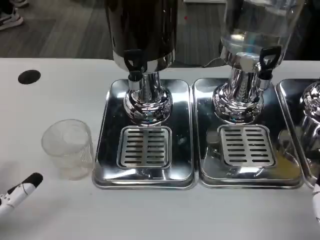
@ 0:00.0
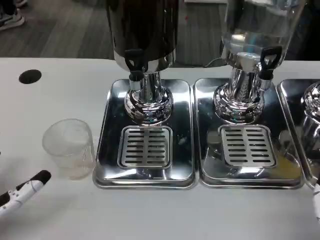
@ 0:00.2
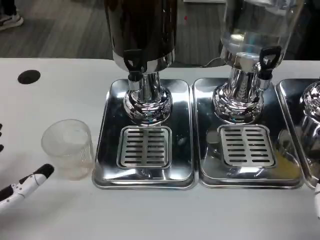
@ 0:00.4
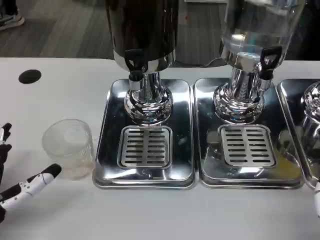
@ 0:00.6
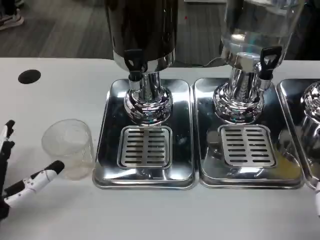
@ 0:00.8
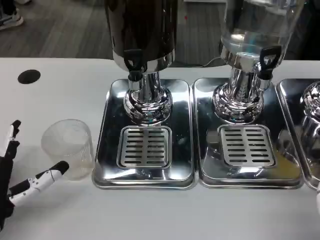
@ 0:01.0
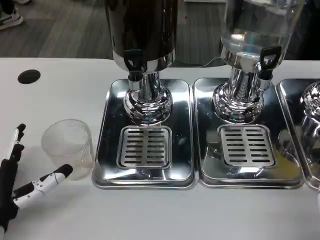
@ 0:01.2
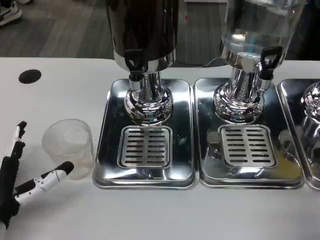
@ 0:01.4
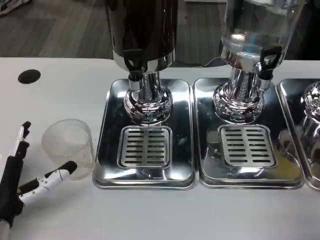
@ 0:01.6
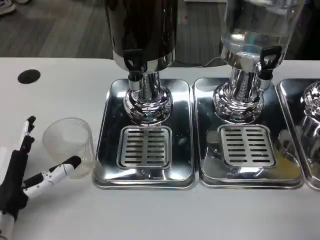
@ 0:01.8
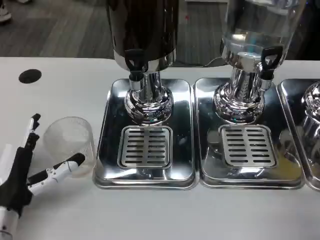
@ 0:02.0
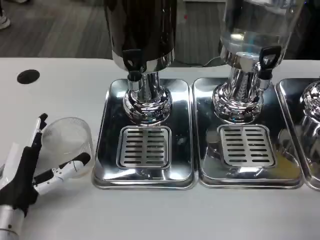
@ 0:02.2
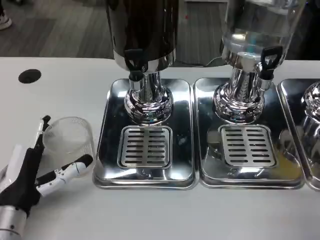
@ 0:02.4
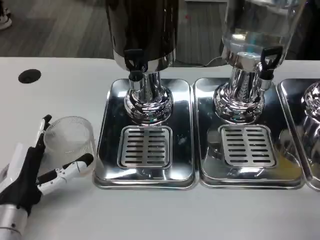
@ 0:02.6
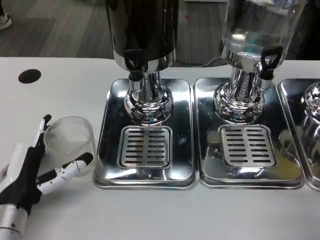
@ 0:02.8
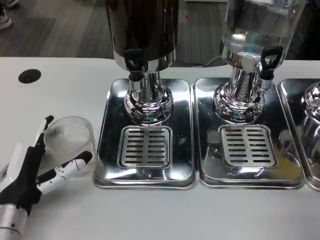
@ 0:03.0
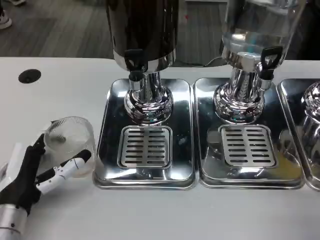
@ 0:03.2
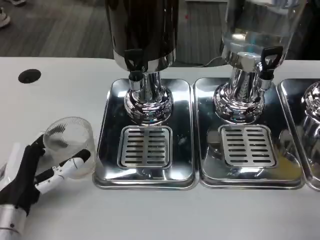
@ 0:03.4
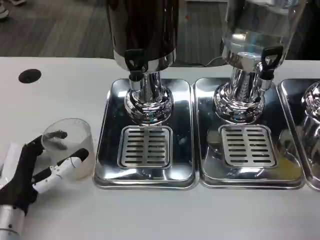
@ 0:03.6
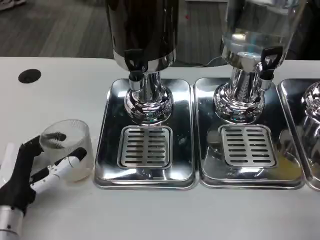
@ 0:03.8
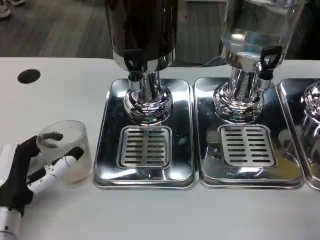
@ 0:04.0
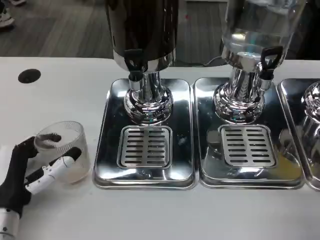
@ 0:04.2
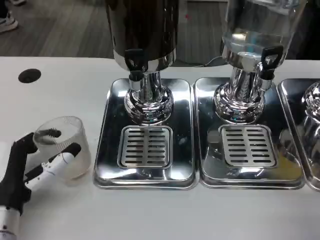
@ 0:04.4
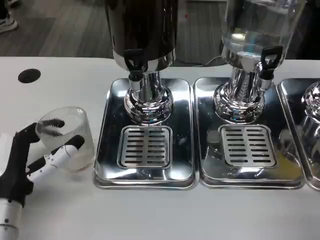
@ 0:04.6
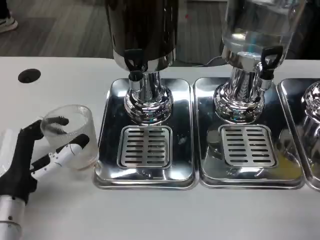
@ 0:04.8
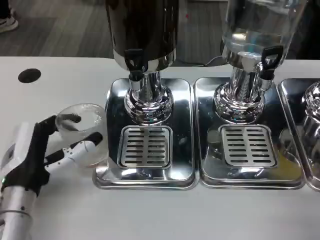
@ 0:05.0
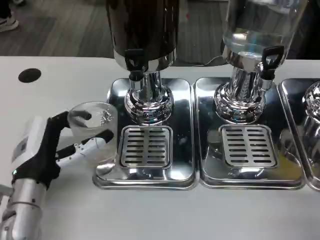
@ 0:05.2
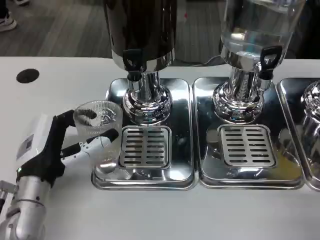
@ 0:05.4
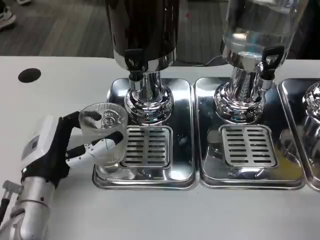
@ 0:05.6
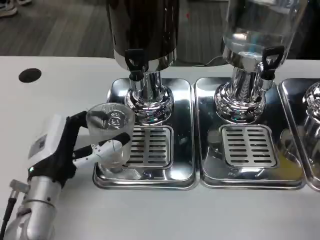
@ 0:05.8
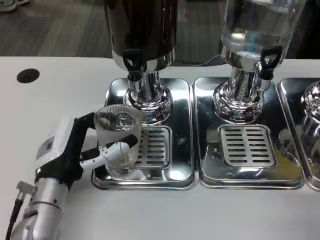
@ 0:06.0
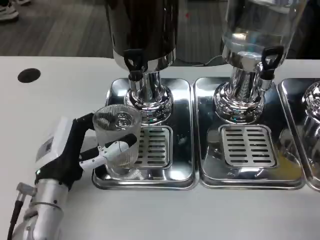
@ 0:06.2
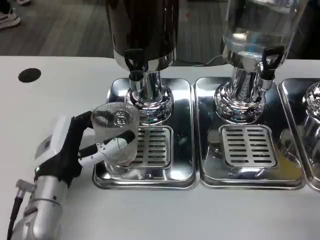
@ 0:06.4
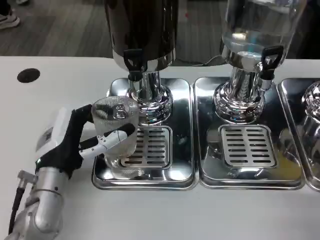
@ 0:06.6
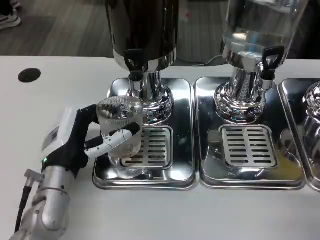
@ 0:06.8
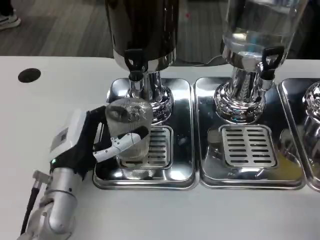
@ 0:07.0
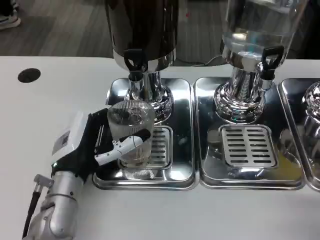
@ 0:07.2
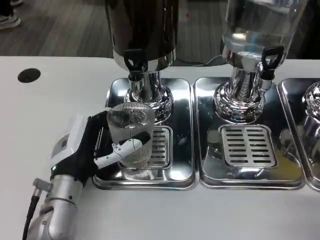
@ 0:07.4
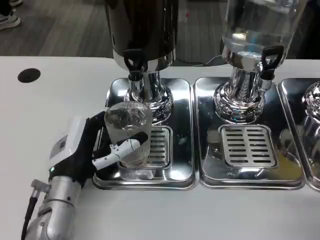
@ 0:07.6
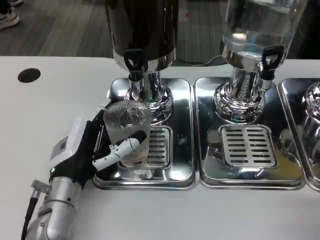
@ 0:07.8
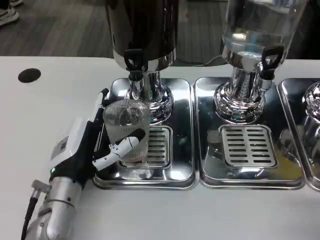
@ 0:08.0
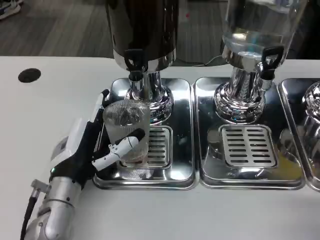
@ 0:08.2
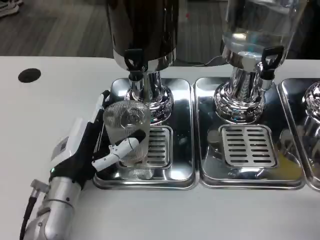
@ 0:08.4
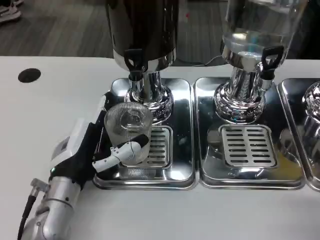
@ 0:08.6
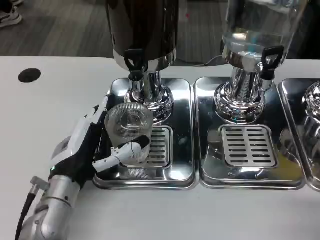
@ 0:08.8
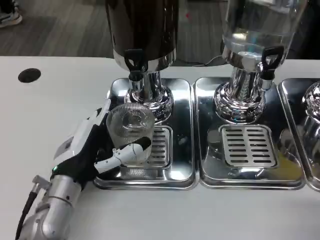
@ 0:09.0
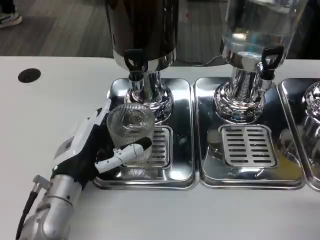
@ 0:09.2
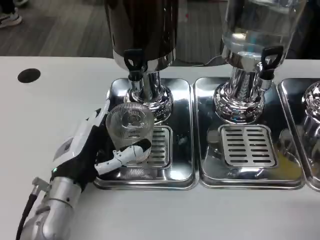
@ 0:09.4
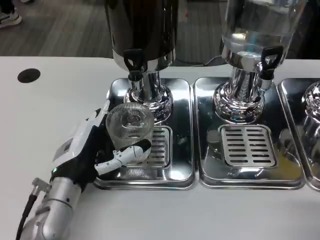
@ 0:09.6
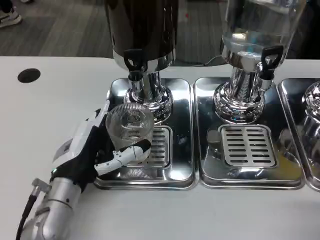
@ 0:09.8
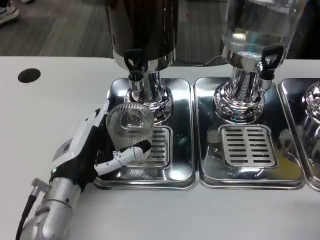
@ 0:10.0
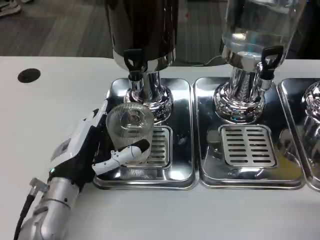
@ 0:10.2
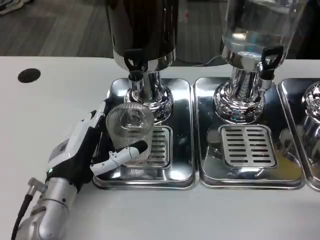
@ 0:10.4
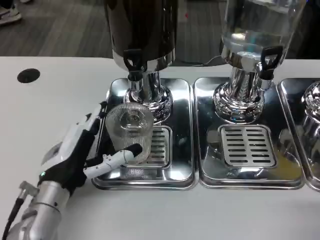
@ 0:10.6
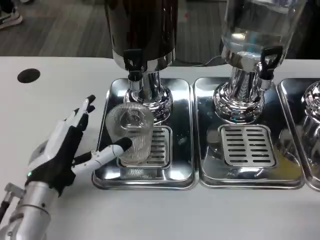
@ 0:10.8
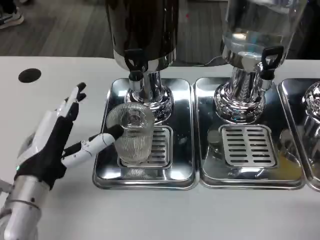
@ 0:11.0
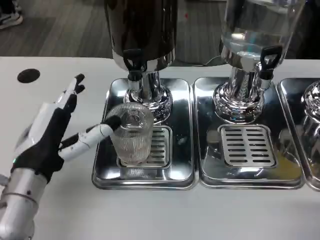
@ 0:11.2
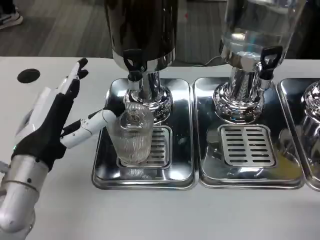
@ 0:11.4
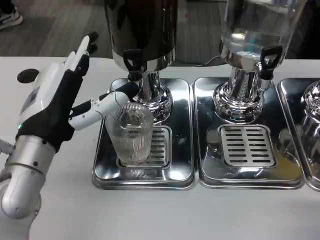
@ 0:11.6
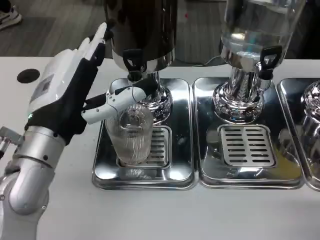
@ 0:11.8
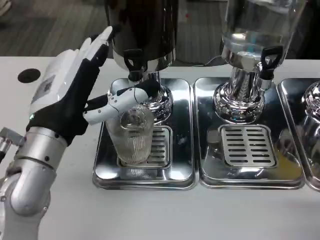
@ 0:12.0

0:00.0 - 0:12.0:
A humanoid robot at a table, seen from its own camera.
Task of the whole recording: Grasp the cup under the faucet to collect the drink, then remove the cup.
0:00.0 - 0:01.6: The left hand moves about 5 cm.
0:01.6 - 0:04.4: The hands move only a little.
0:04.4 - 0:06.0: The left hand heads to the right, covering about 5 cm.
0:06.0 - 0:09.0: The hands make only small movements.
0:09.0 - 0:10.4: Both hands stay put.
0:10.4 - 0:12.0: The left hand moves upward, some 10 cm.

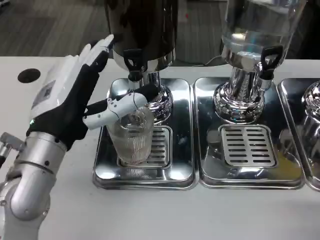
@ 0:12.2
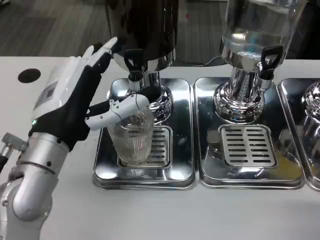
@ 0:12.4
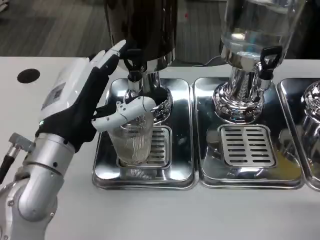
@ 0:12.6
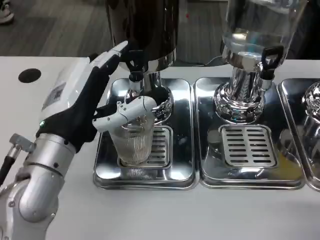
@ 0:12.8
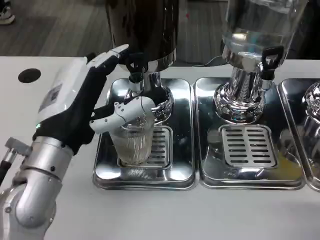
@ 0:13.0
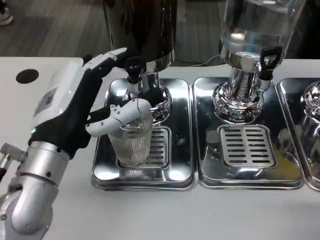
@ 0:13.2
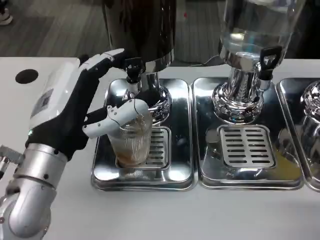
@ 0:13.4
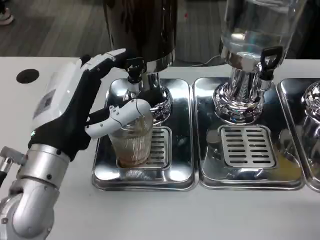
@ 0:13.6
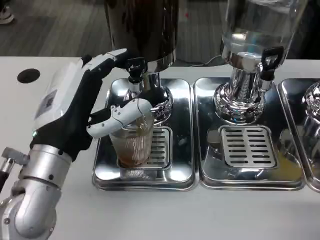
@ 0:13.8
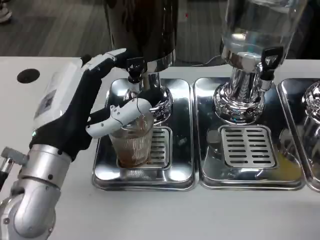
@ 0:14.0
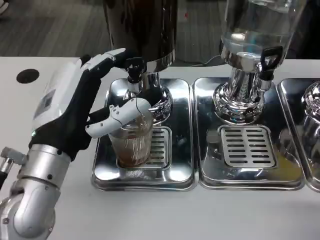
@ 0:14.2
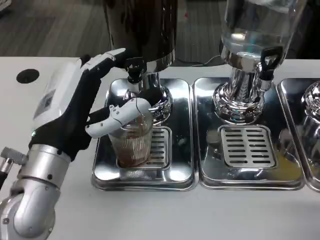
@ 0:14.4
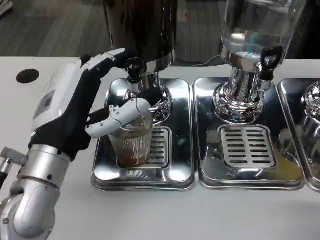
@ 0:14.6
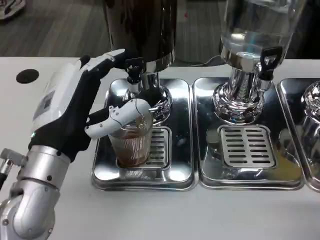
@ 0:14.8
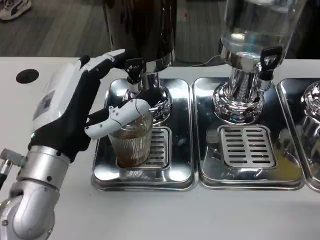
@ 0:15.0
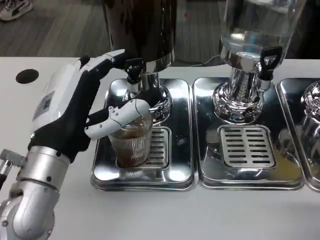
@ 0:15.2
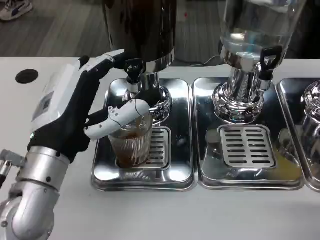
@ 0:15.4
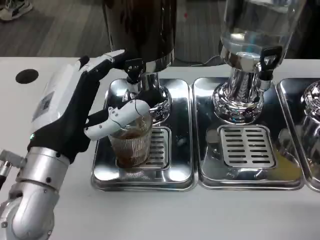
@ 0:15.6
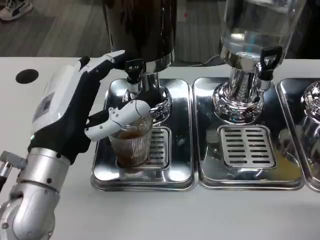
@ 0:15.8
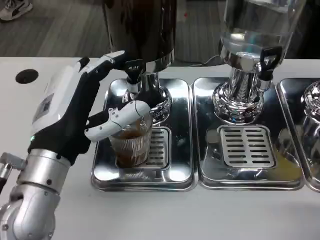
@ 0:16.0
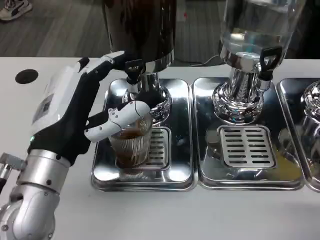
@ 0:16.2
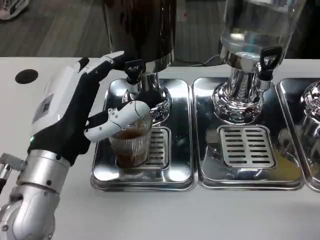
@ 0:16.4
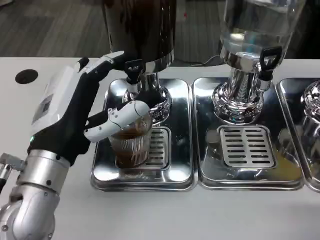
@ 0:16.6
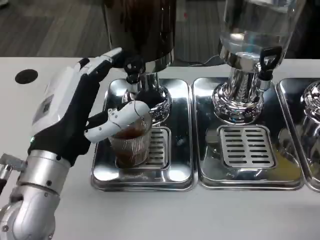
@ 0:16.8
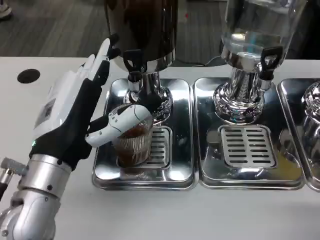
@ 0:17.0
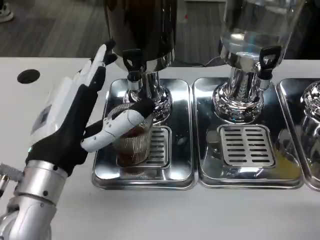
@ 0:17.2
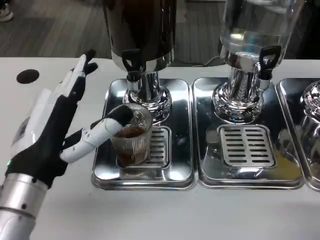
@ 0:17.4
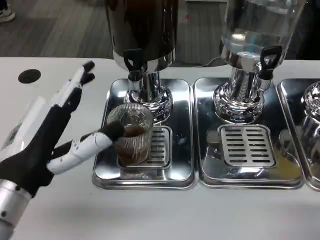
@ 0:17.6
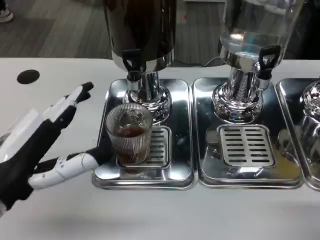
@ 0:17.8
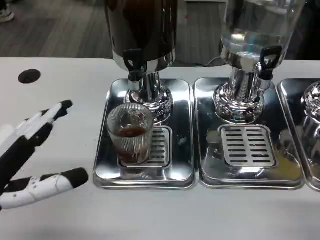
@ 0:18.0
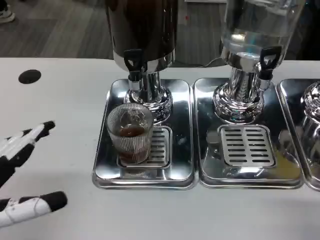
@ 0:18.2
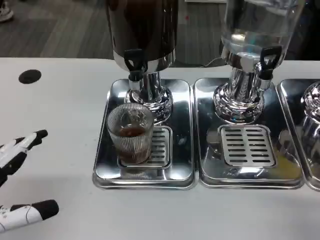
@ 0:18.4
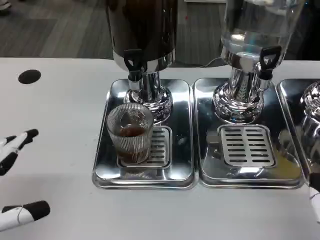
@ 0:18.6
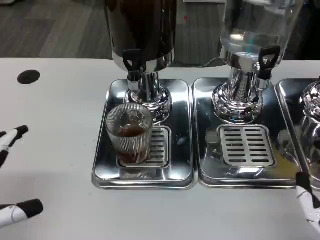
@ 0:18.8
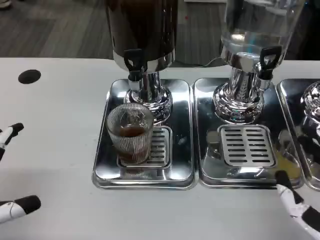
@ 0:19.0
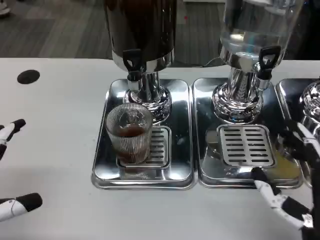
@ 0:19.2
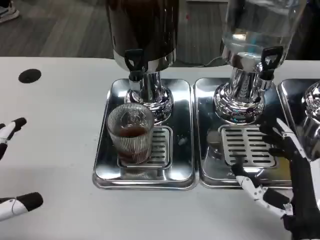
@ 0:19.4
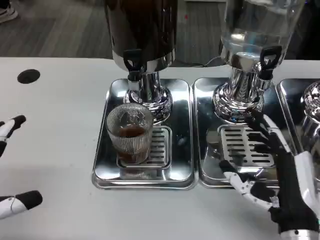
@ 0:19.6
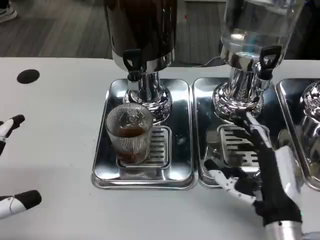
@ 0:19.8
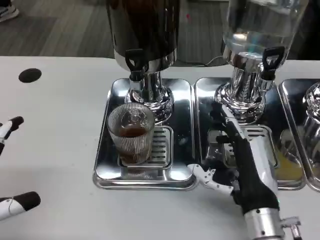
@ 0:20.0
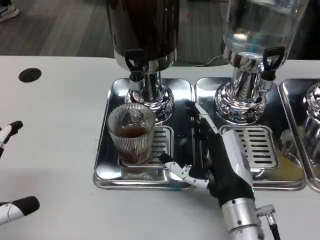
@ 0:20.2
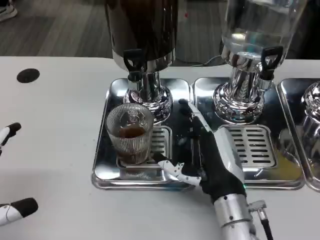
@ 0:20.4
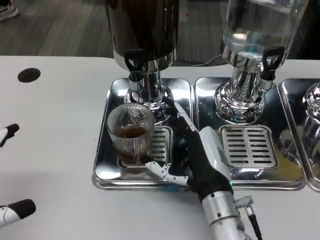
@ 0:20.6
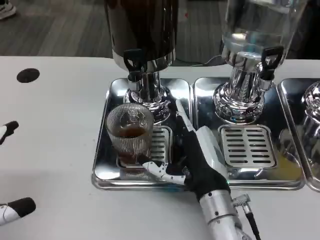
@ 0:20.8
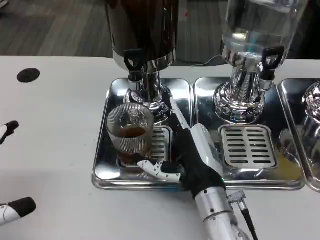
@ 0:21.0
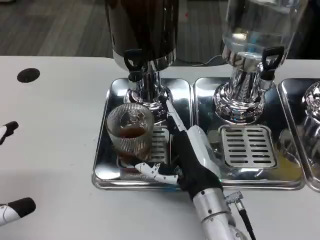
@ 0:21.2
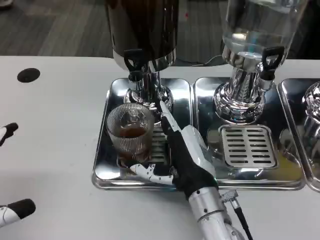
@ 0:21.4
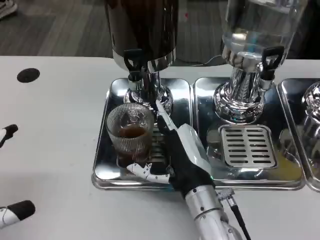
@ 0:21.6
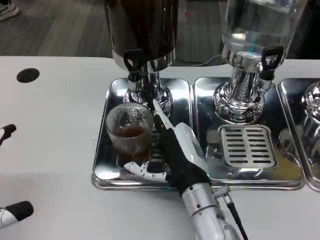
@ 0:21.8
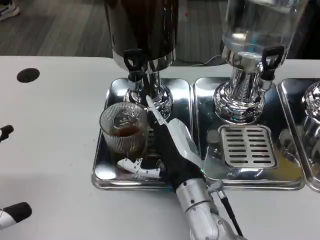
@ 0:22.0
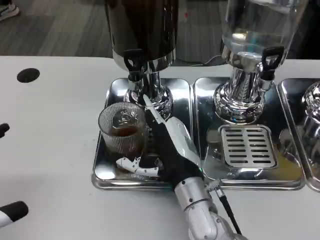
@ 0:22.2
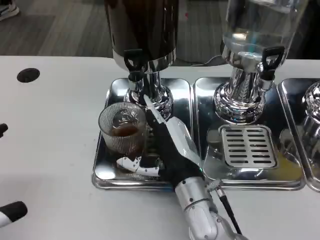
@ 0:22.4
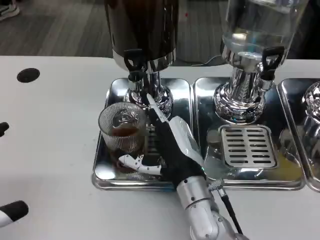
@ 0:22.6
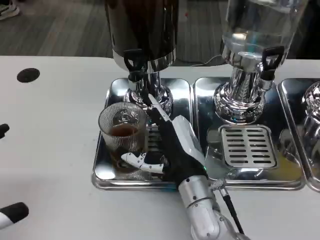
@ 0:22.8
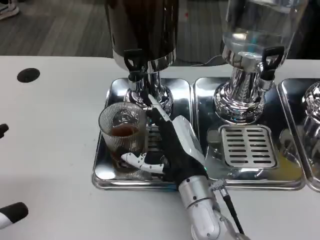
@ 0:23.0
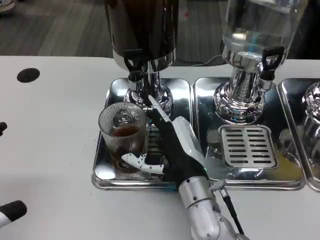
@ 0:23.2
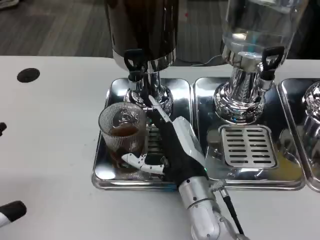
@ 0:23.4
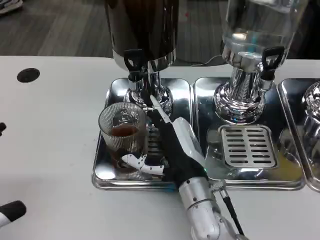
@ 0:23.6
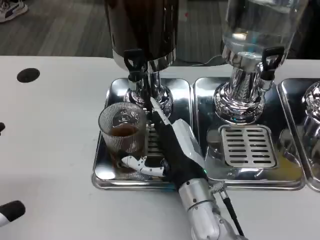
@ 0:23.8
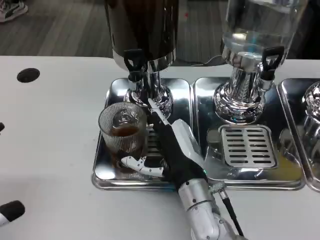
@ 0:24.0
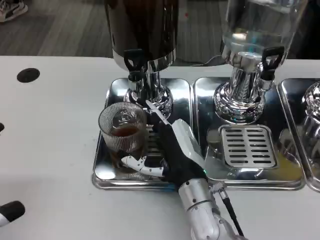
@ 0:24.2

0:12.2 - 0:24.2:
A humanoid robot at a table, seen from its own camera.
Task of the whole recording: Grasp the cup under the faucet to collect the drink, then remove the cup.
0:12.2 - 0:13.8: The hands make only small movements.
0:13.8 - 0:16.6: The two hands keep their place.
0:16.6 - 0:18.2: The left hand is displaced to the left and backward by roughly 15 cm.
0:18.2 - 0:19.8: The right hand goes approximately 15 cm forward and to the left.
0:19.8 - 0:21.2: The right hand is displaced to the left by about 10 cm.
0:21.2 - 0:22.6: The hands stay close to where they were, moving slightly.
0:22.6 - 0:24.2: Neither hand changes place.
